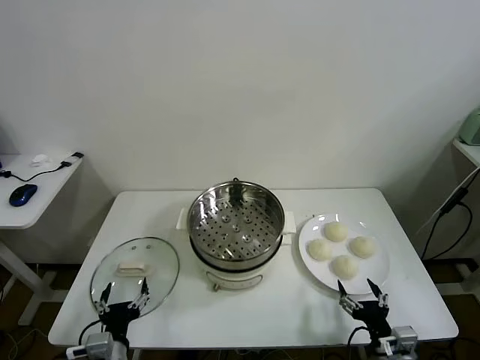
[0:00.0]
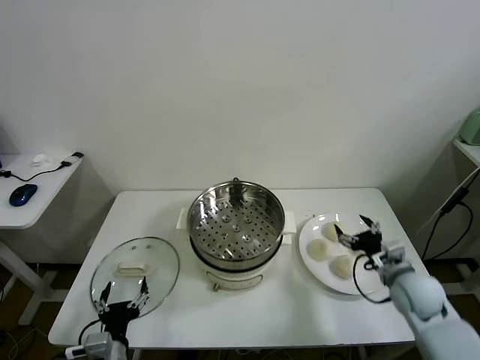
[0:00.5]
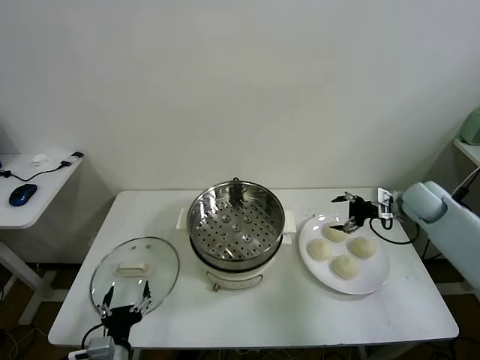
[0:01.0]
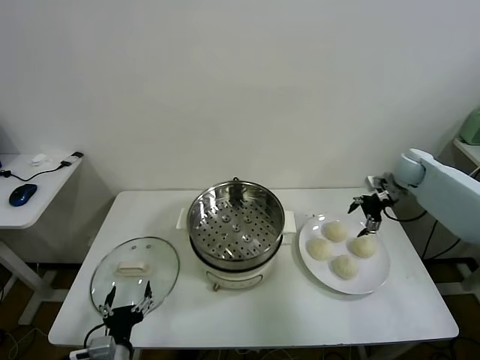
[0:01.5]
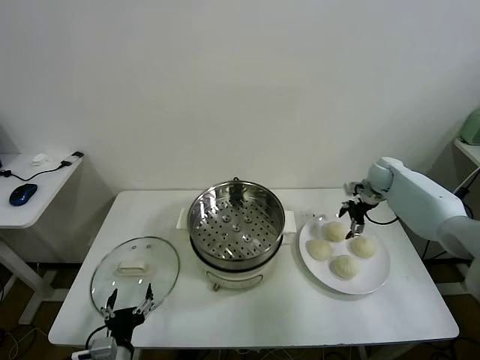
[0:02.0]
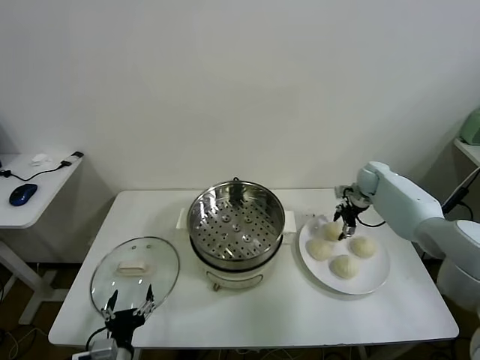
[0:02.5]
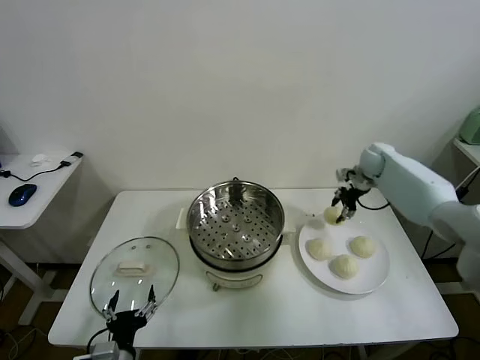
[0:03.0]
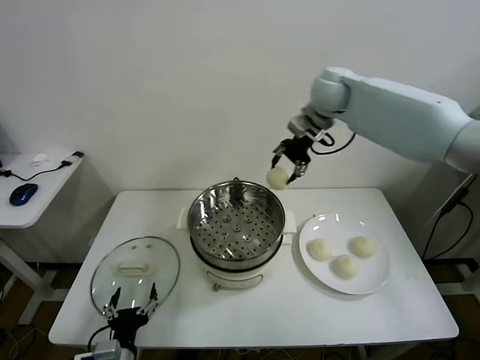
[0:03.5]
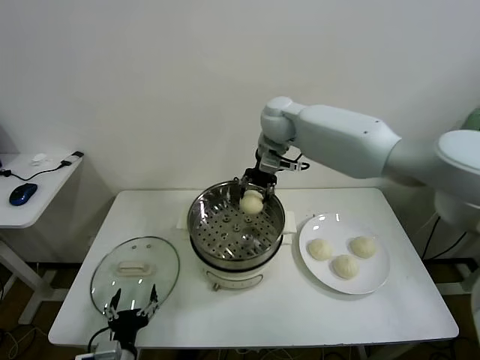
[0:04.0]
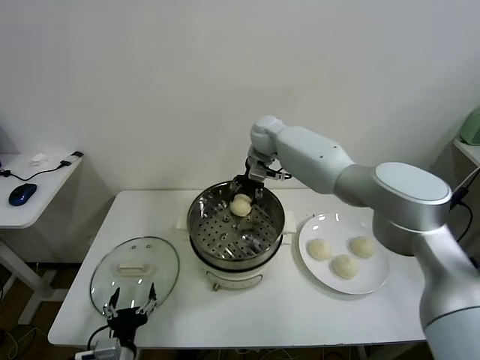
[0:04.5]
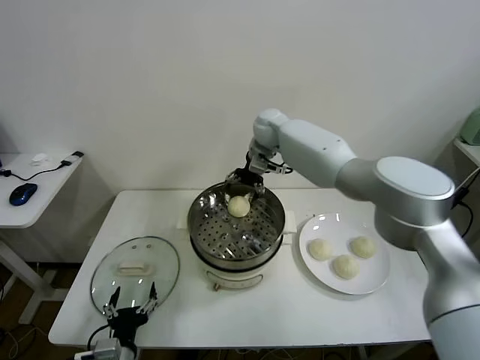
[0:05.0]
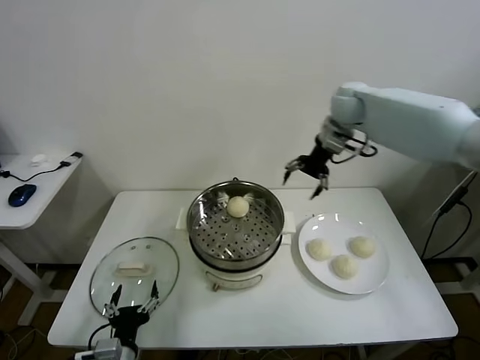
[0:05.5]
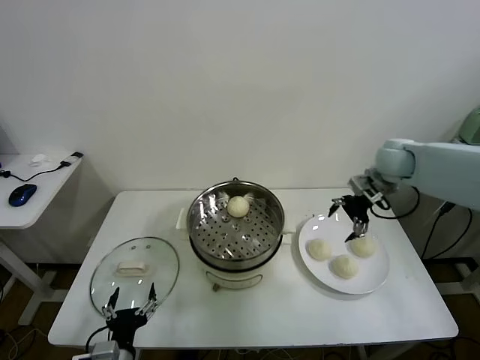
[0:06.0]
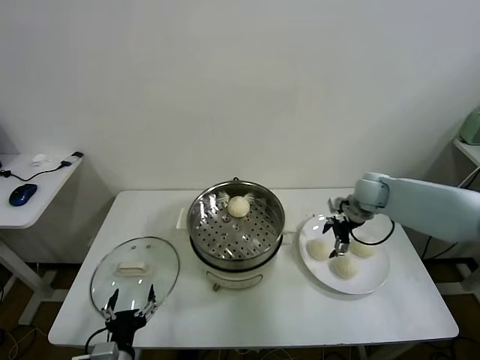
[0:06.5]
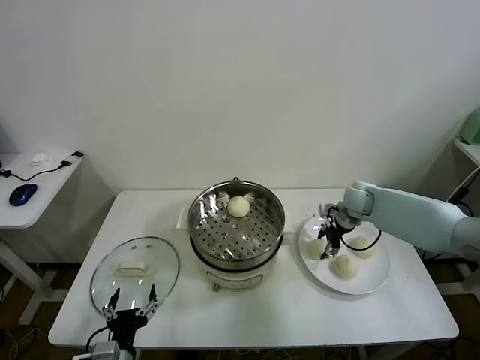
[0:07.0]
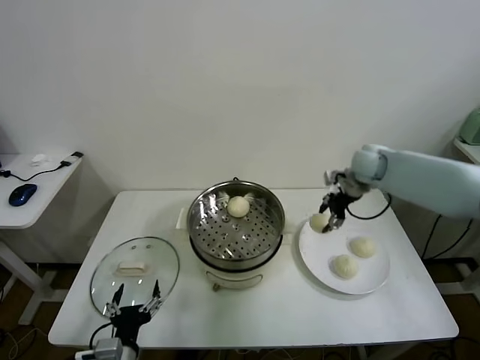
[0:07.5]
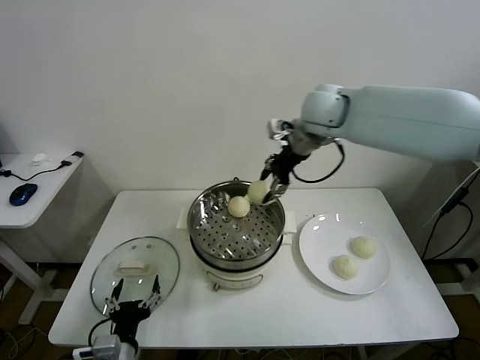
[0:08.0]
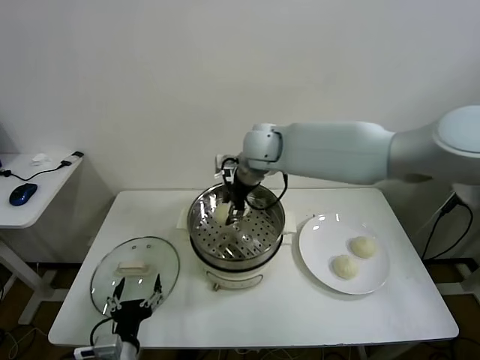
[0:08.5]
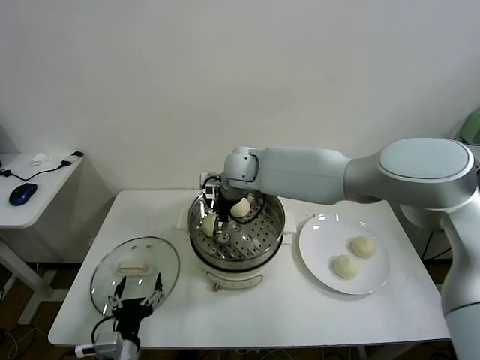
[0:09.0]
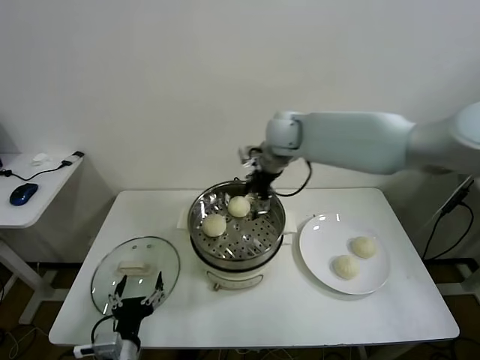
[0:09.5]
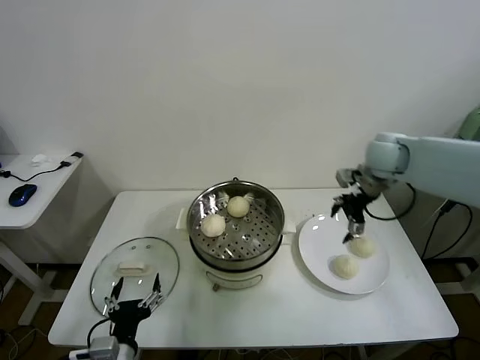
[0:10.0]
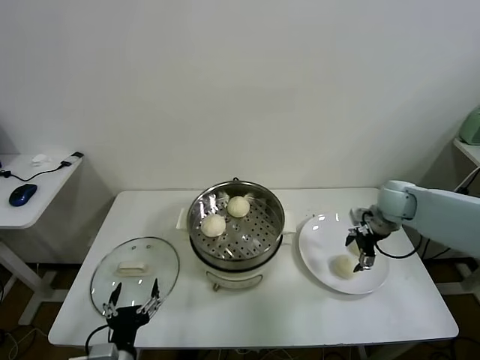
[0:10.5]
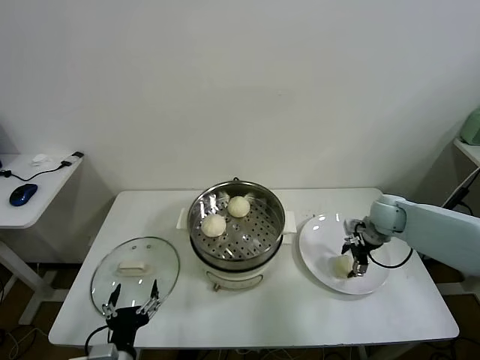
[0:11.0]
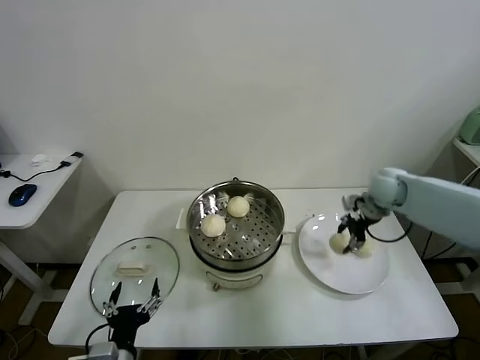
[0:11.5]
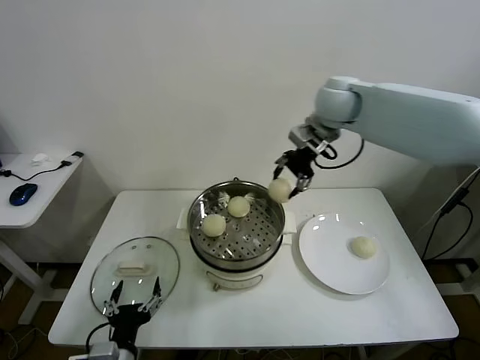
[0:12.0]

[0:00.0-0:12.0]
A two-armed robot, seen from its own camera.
Task of the whole recording: take steamed baozi put them in steamer.
Step, 0:00.0 to 0:02.5: Grasp the baozi in the plate with right gripper.
Step, 0:03.0 to 0:05.0: Place the baozi on the steamer with right gripper.
Step, 0:05.5 to 0:07.0: Grasp the baozi in the plate with right gripper.
Step, 0:07.5 to 0:09.0: Place the baozi on the steamer with right gripper.
Step, 0:09.5 to 0:11.0: Grasp the baozi in the plate with right gripper.
0:02.0 to 0:04.0: The right gripper shifts approximately 35 cm to the left and upward, and closes.
0:04.0 to 0:06.0: The right gripper heads to the right, covering some 25 cm, and opens its fingers.
0:06.0 to 0:08.0: The right gripper heads to the left and upward, covering some 25 cm, and closes up.
0:08.0 to 0:10.0: The right gripper goes approximately 25 cm to the right and downward, and opens up.
0:10.0 to 0:12.0: The right gripper moves to the left and upward, approximately 20 cm, and closes up.

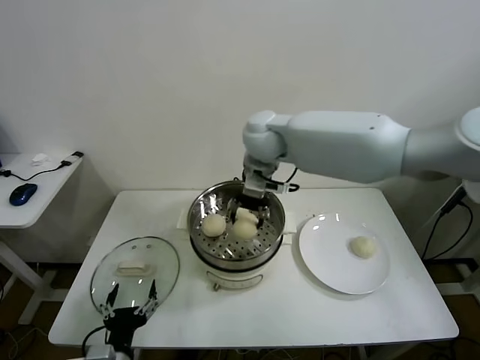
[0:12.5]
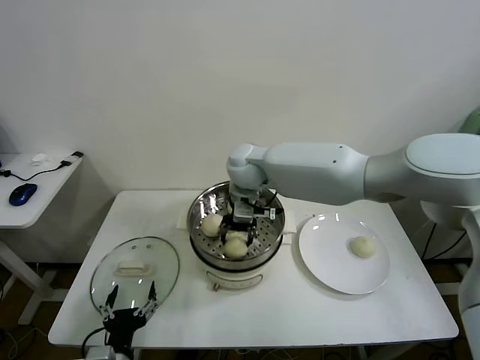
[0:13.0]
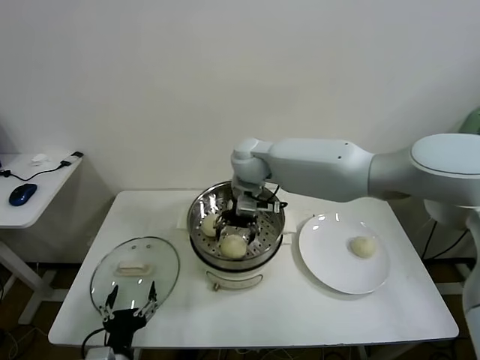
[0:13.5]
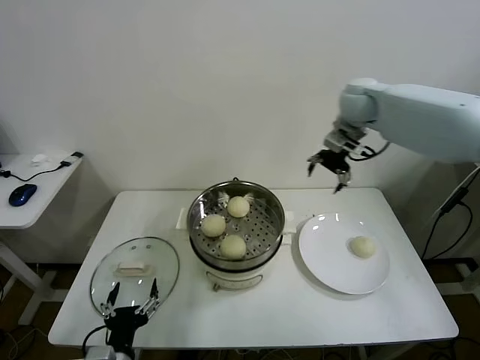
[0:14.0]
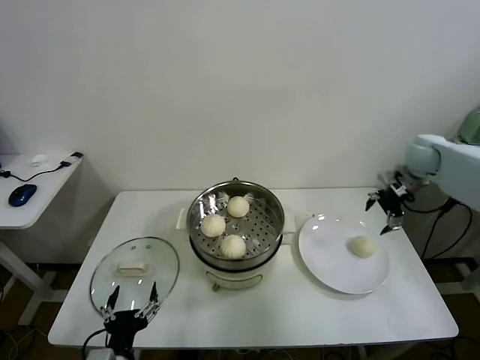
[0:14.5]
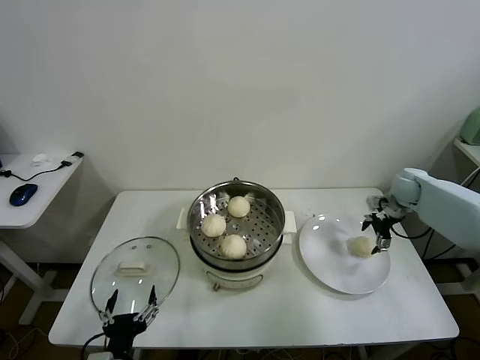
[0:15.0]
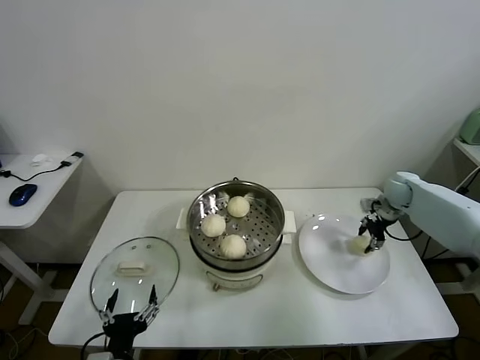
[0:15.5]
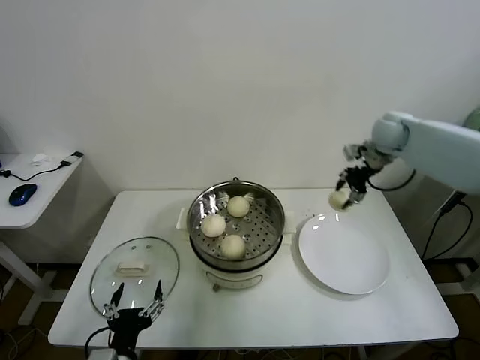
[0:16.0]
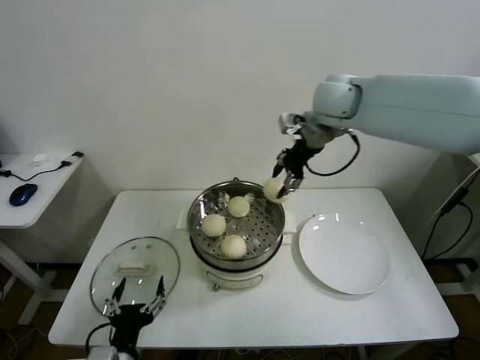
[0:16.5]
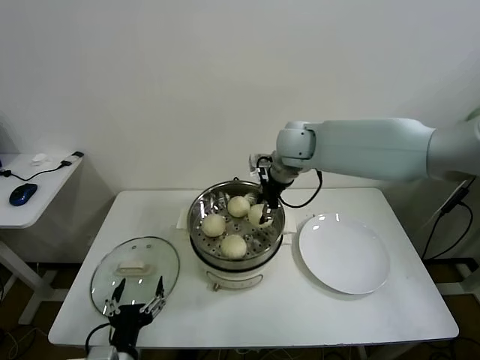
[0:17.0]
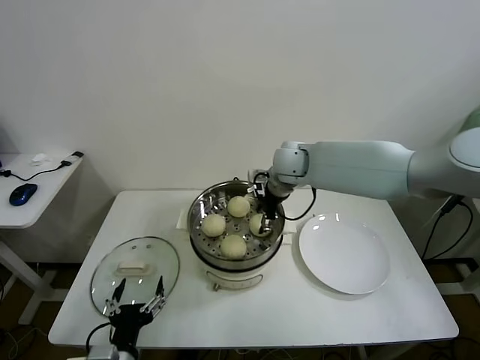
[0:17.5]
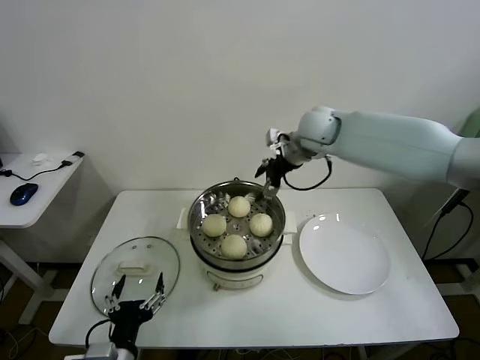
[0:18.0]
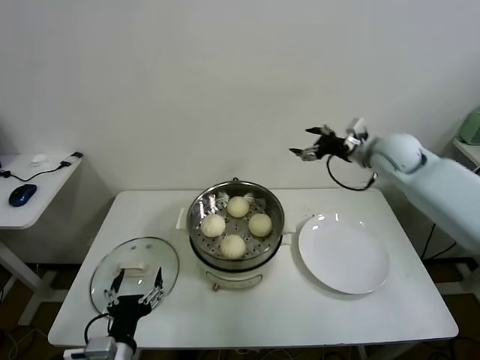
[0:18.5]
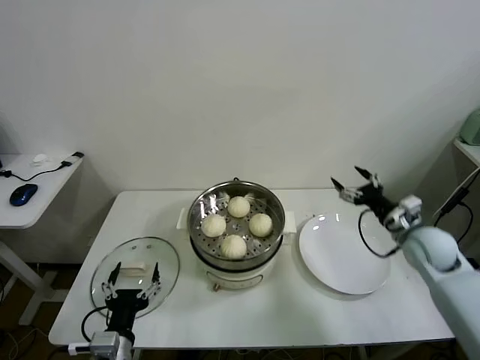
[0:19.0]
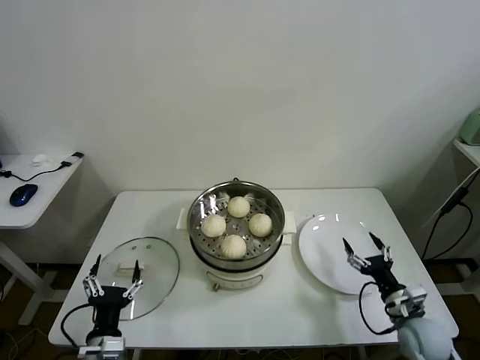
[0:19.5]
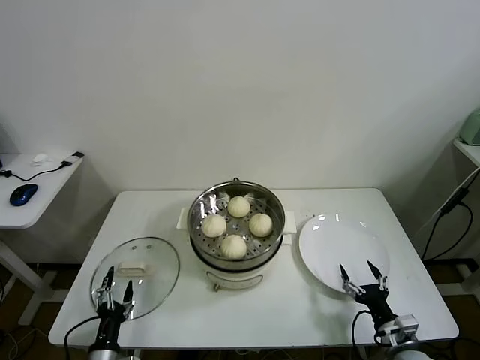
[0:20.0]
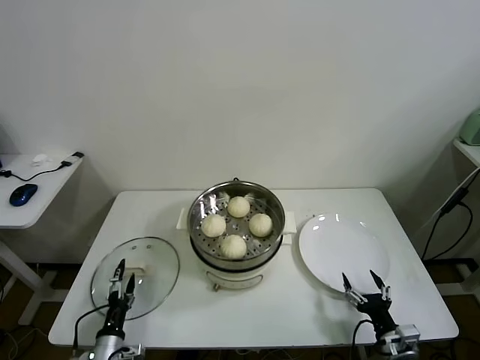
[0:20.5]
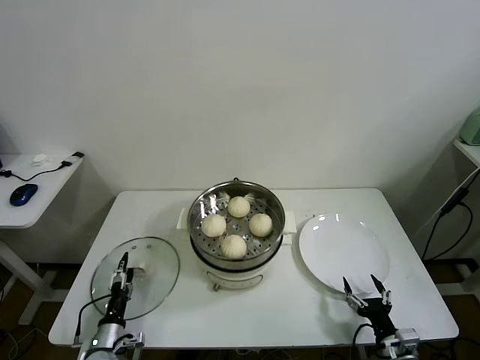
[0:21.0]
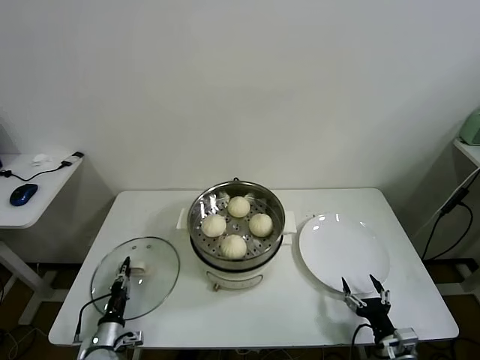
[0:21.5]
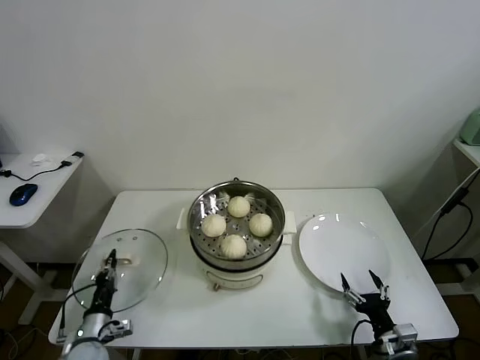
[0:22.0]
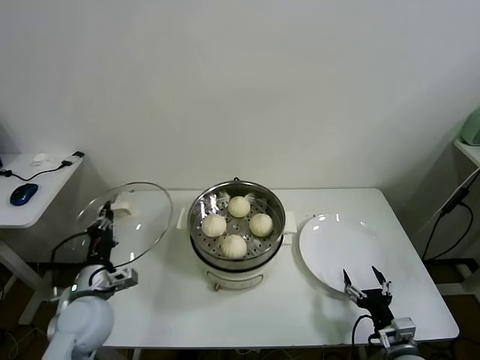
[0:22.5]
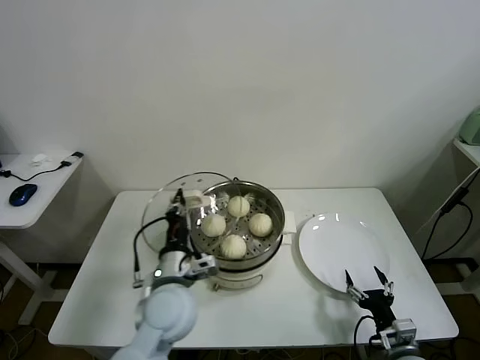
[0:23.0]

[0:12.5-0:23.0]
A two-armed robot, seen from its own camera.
Task of the whole recording: take steamed baozi put them in steamer.
Step, 0:13.5 to 0:15.5: Grasp the baozi in the plate with right gripper.
Step, 0:16.0 to 0:17.5: Place the baozi on the steamer with right gripper.
Step, 0:18.0 to 0:21.5: Grasp the pot lid with left gripper.
0:12.5 to 0:14.5: The right gripper moves to the right, some 40 cm, and opens its fingers.
0:14.5 to 0:16.5: The right gripper shifts about 30 cm to the left and upward, and closes its fingers.
0:16.5 to 0:19.0: The right gripper shifts some 40 cm downward, to the right and backward, and opens.
0:19.0 to 0:21.0: The left gripper heads downward and to the left, covering roughly 20 cm, while the right gripper shifts roughly 30 cm backward and downward.
0:21.0 to 0:23.0: The left gripper travels upward and to the right by about 30 cm, and closes its fingers.

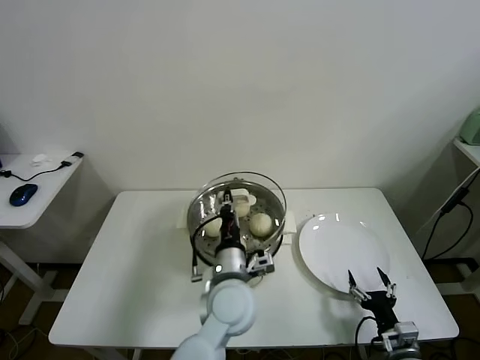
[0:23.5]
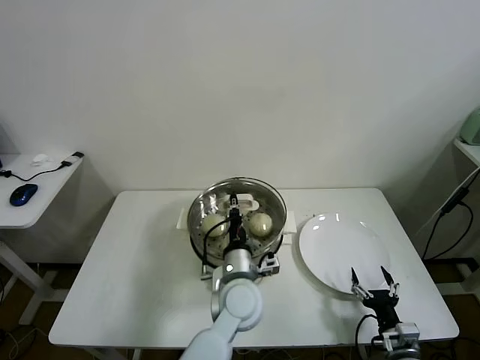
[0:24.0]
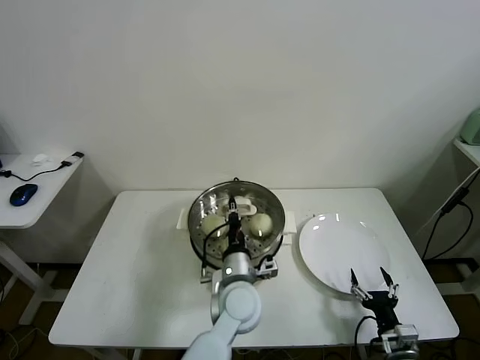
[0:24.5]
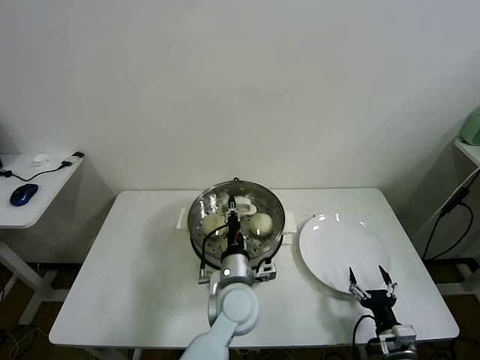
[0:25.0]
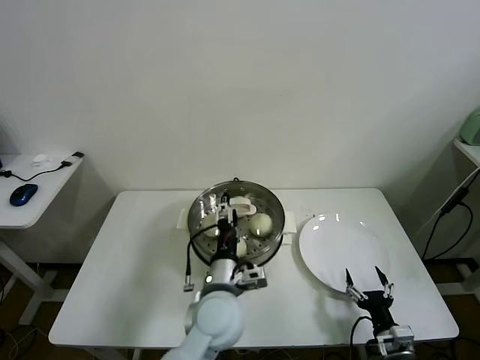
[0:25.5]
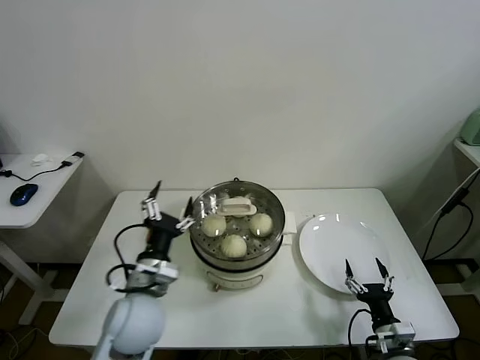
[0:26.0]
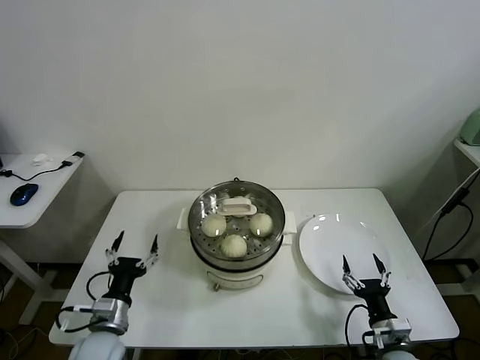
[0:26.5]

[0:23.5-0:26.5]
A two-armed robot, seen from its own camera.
Task of the whole recording: take steamed baozi put them in steamer.
Step, 0:23.5 to 0:25.5: Place the pot lid on the steamer with left gripper.
0:23.5 to 0:25.0: The left gripper shifts roughly 5 cm downward.
0:25.0 to 0:26.5: The left gripper shifts some 25 cm to the left, and opens up.
